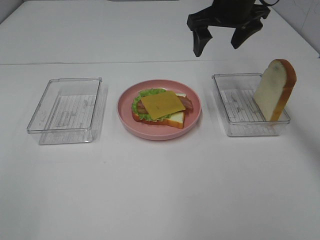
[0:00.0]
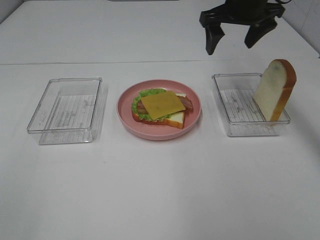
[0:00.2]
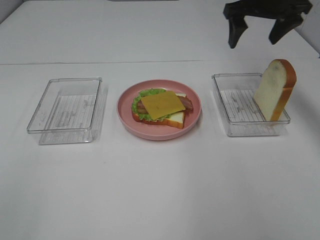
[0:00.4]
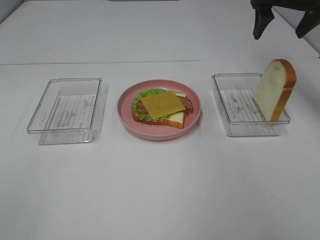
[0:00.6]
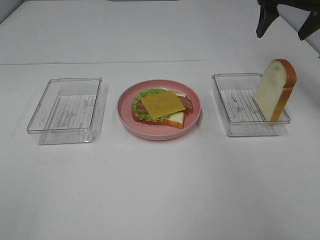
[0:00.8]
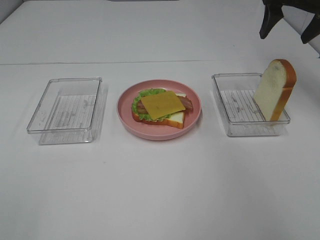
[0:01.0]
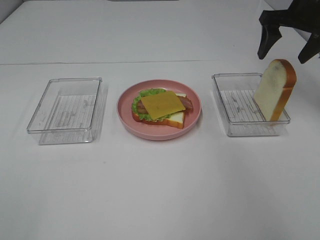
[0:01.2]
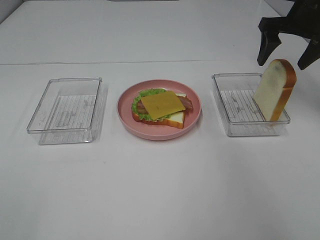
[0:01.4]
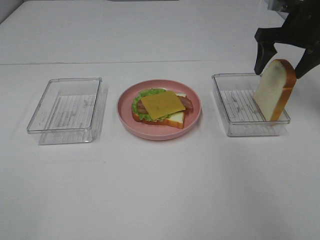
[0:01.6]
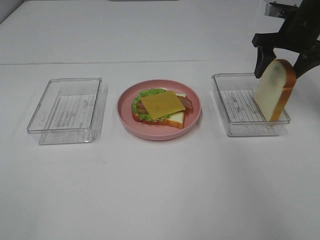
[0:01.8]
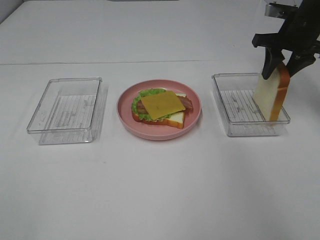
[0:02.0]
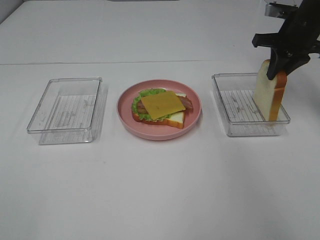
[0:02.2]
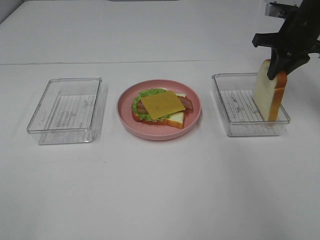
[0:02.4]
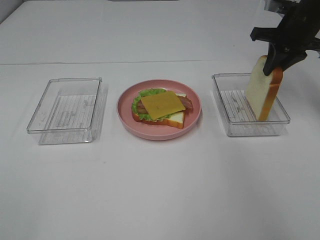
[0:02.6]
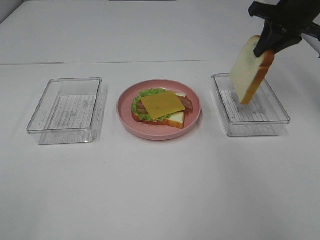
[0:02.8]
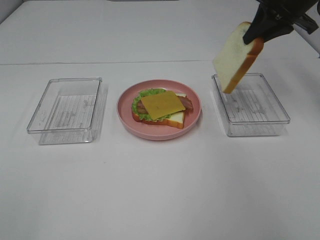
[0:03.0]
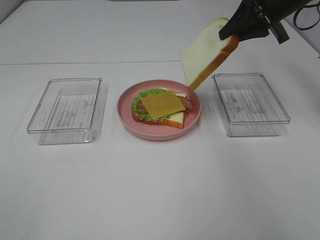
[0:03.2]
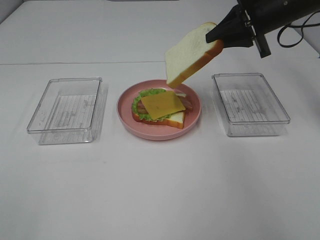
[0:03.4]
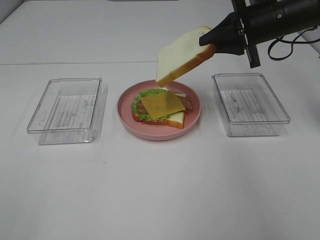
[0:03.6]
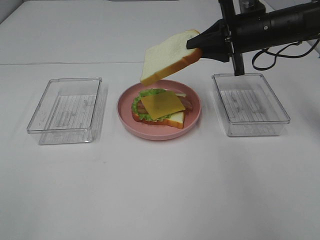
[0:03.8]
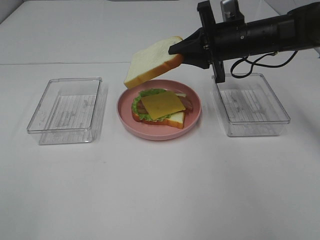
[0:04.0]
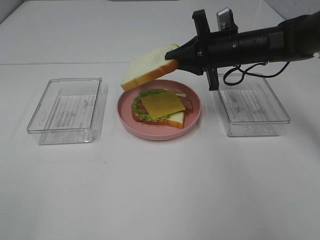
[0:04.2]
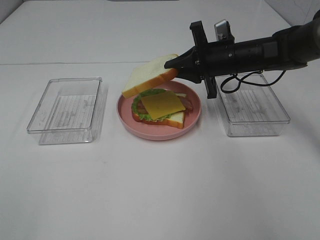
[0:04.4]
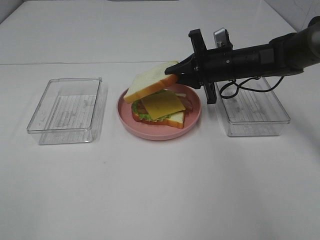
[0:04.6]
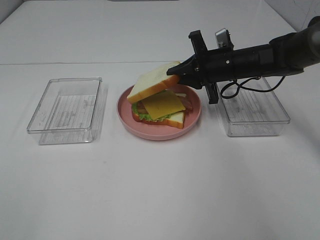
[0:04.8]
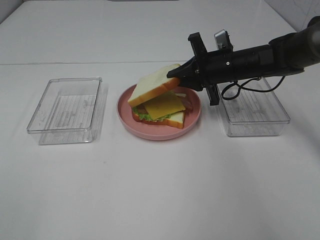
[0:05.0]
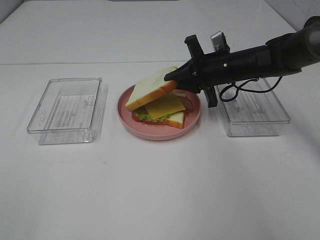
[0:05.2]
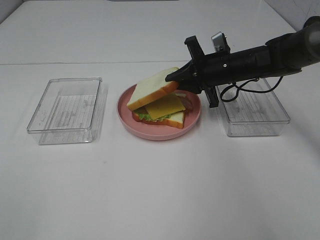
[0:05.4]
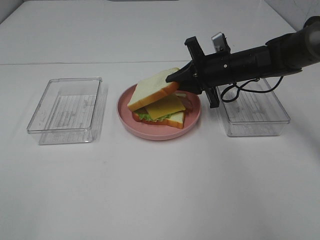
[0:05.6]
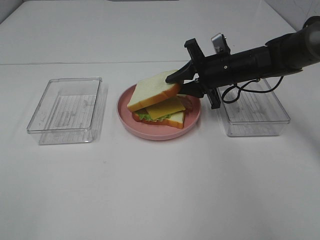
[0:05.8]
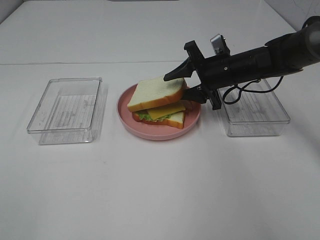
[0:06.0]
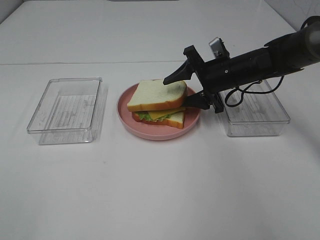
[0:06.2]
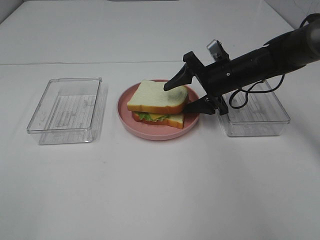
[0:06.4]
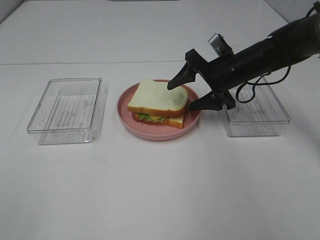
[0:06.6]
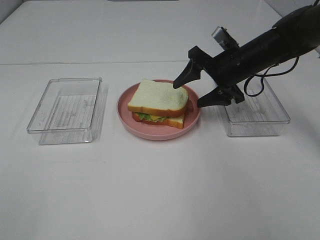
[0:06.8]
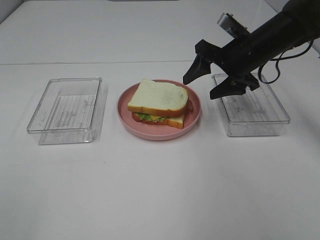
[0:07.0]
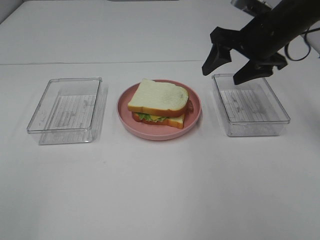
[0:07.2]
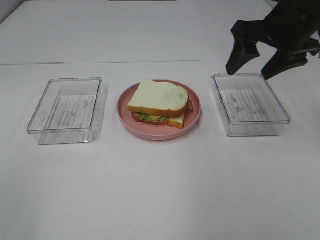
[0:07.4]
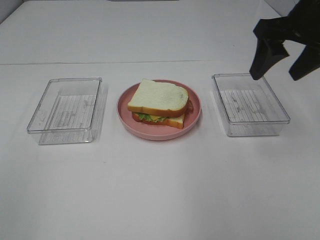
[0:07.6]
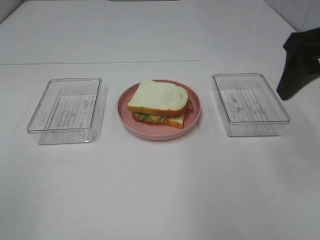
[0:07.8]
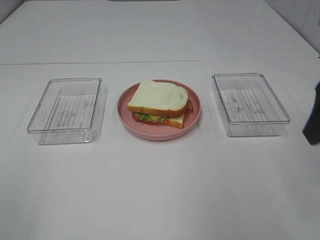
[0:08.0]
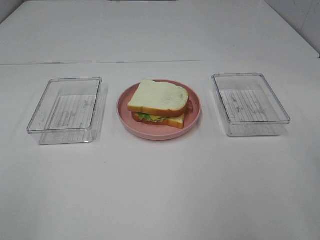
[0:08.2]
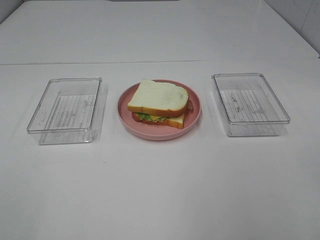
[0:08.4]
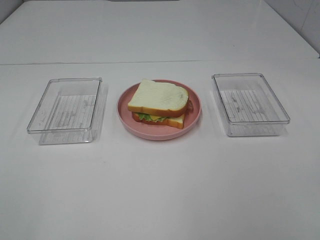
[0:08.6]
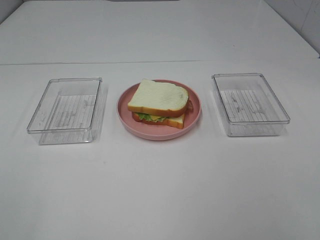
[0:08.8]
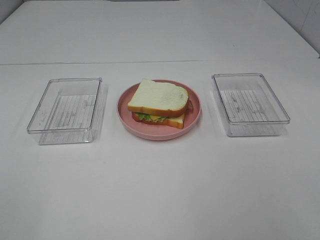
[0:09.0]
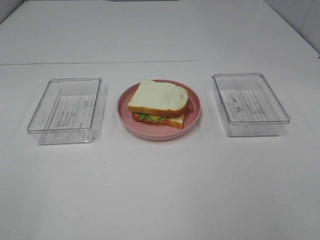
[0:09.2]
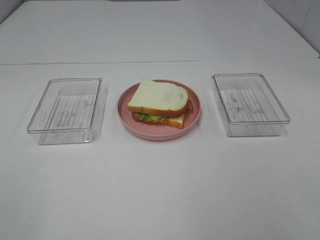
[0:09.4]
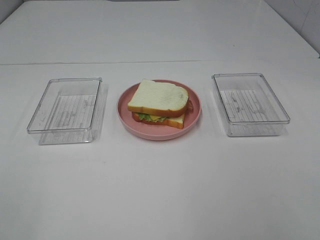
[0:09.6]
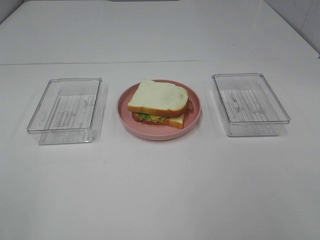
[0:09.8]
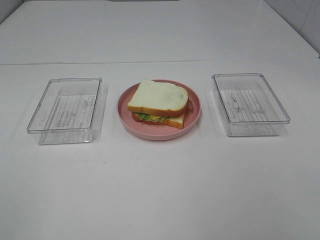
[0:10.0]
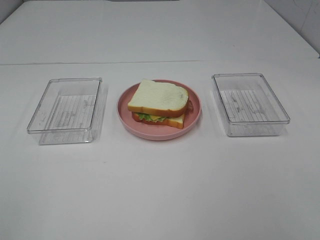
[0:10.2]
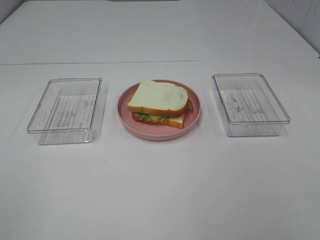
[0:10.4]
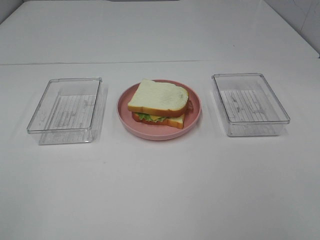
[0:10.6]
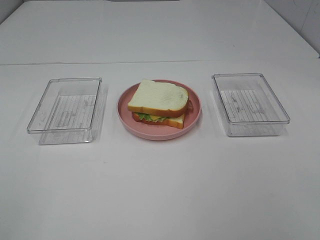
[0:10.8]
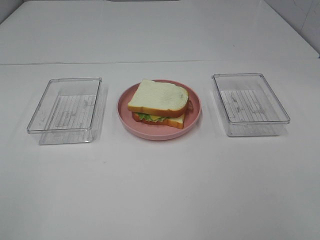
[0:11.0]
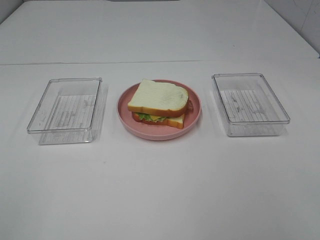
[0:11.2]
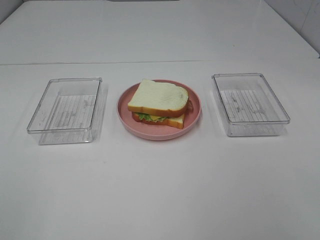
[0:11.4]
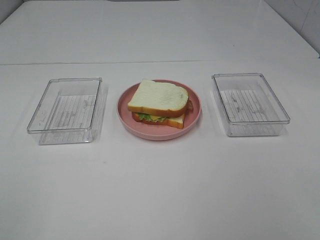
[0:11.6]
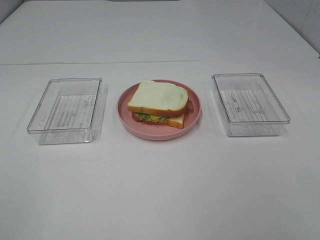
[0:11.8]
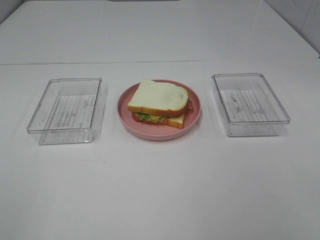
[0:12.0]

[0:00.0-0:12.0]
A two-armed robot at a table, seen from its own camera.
Task of the whole recording: Make sandwiches.
Step, 0:00.0 to 0:02.6: Right hand:grab the bread slice.
Step, 0:02.8 to 0:07.2: Right hand:place the bread slice on the cheese slice.
0:00.0 to 0:01.6: The right gripper is displaced to the right by some 15 cm.
0:01.6 to 0:03.0: The right gripper shifts about 5 cm upward, and closes.
0:03.0 to 0:04.4: The right gripper moves downward and to the left, roughly 15 cm.
0:04.4 to 0:06.0: The right gripper opens.
0:06.0 to 0:07.6: The right gripper is displaced upward and backward by some 20 cm.
0:07.6 to 0:09.0: The right gripper shifts about 30 cm backward.
0:10.4 to 0:12.0: The two grippers keep their place.

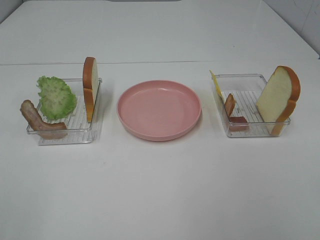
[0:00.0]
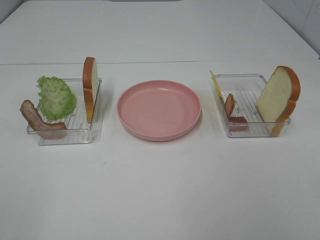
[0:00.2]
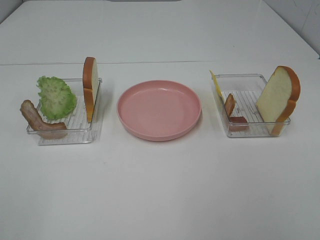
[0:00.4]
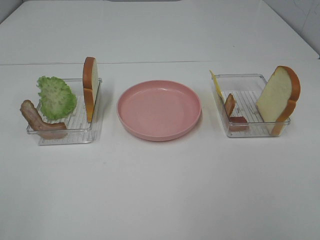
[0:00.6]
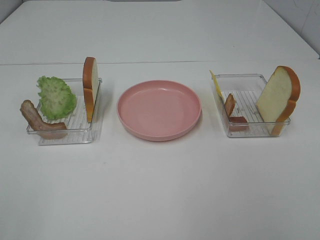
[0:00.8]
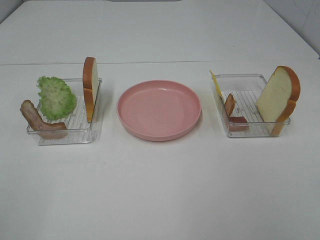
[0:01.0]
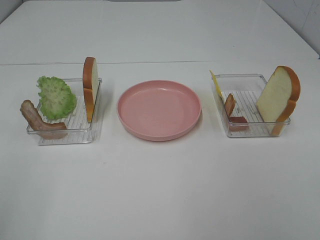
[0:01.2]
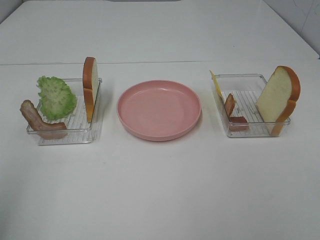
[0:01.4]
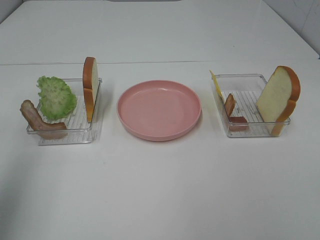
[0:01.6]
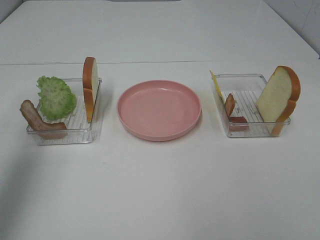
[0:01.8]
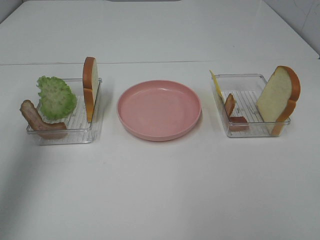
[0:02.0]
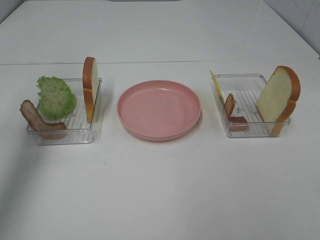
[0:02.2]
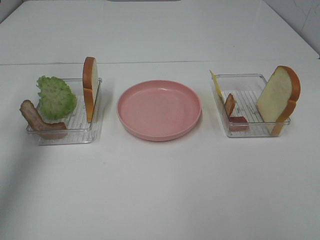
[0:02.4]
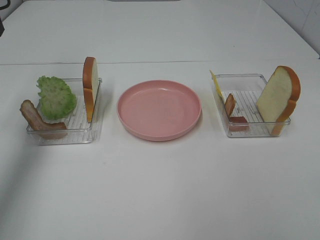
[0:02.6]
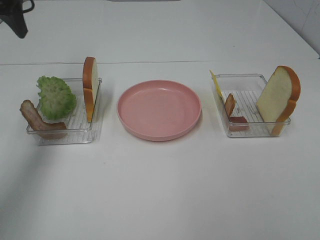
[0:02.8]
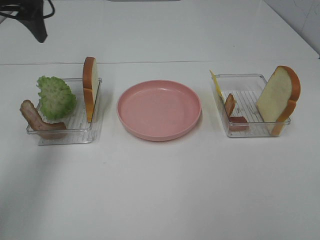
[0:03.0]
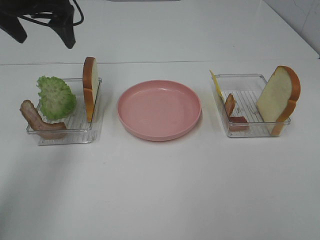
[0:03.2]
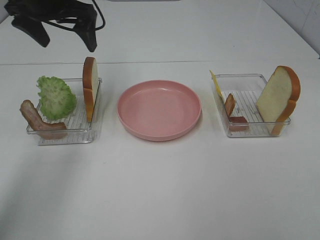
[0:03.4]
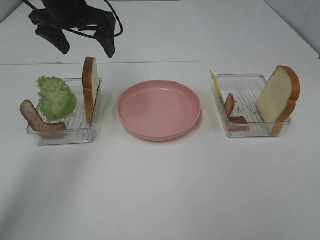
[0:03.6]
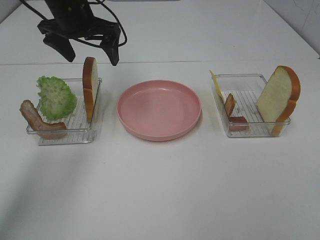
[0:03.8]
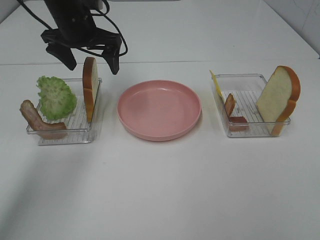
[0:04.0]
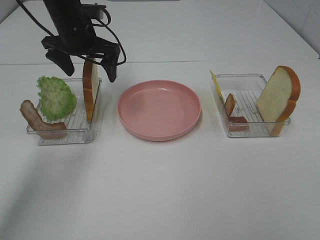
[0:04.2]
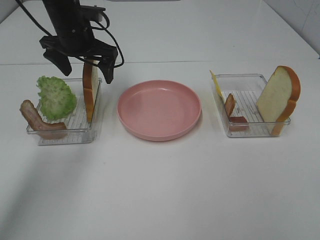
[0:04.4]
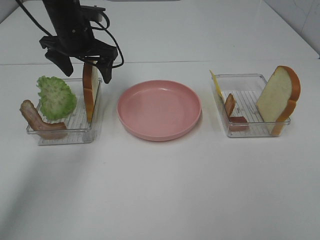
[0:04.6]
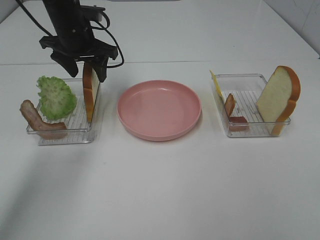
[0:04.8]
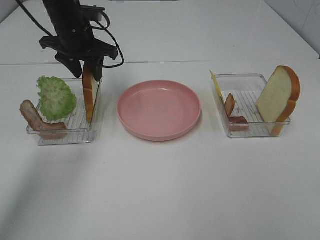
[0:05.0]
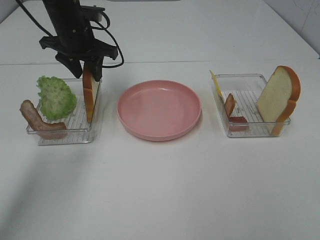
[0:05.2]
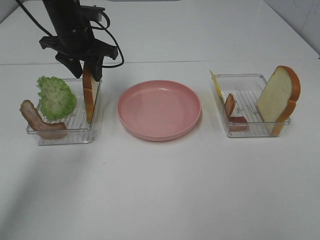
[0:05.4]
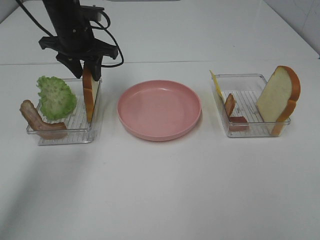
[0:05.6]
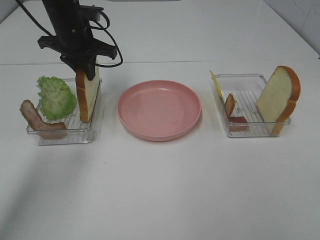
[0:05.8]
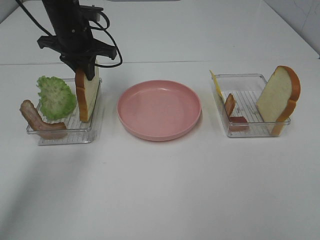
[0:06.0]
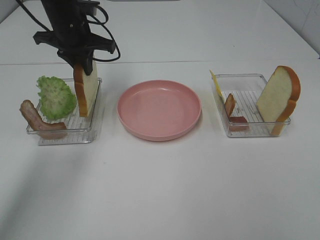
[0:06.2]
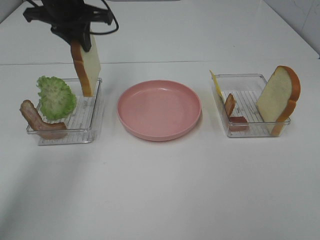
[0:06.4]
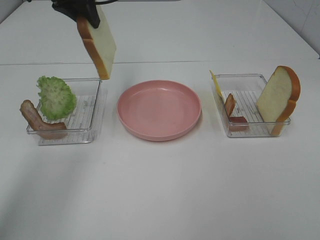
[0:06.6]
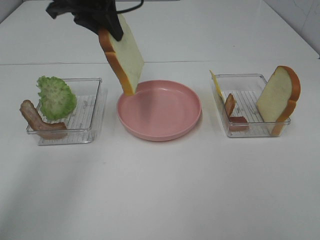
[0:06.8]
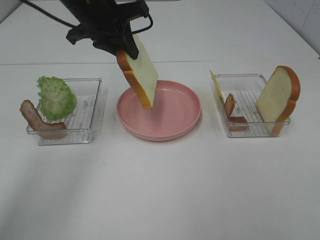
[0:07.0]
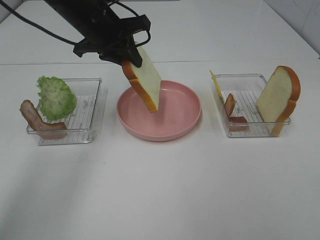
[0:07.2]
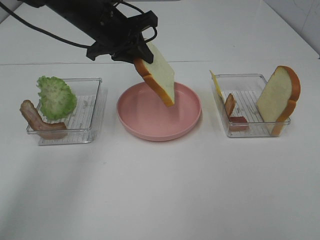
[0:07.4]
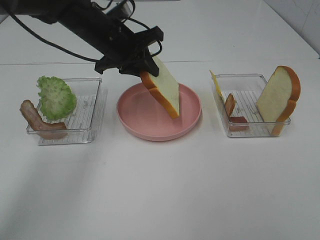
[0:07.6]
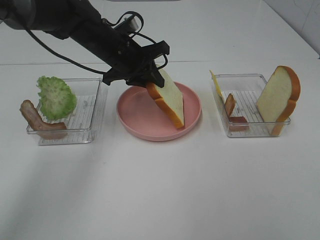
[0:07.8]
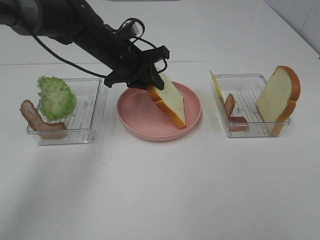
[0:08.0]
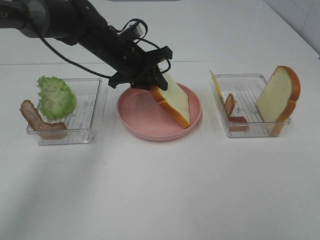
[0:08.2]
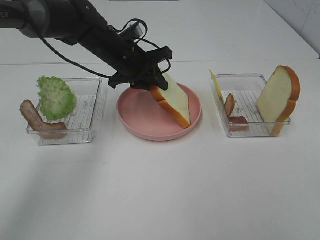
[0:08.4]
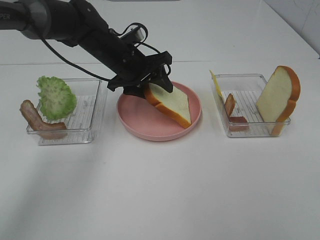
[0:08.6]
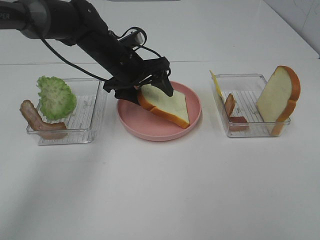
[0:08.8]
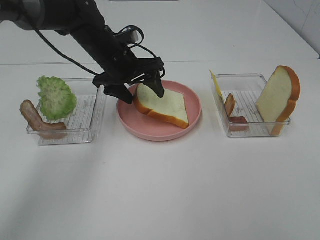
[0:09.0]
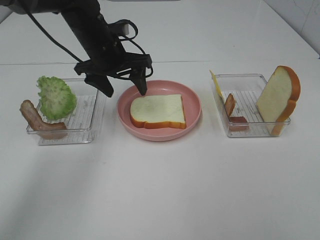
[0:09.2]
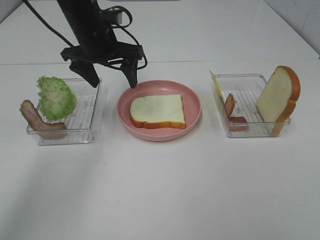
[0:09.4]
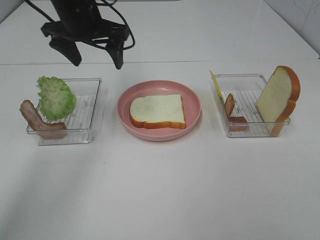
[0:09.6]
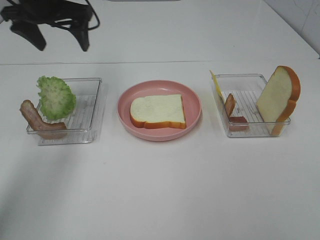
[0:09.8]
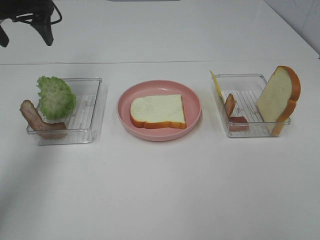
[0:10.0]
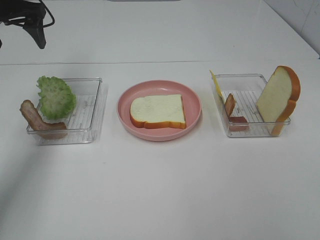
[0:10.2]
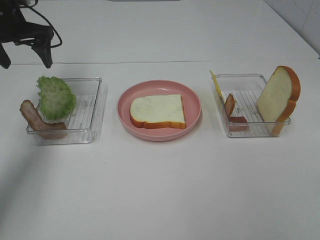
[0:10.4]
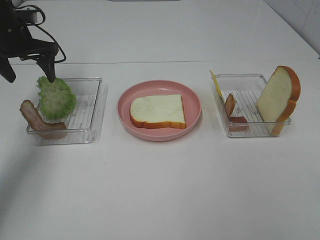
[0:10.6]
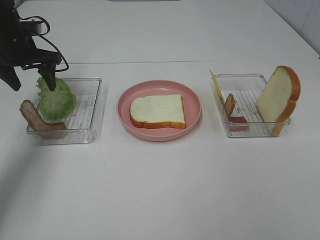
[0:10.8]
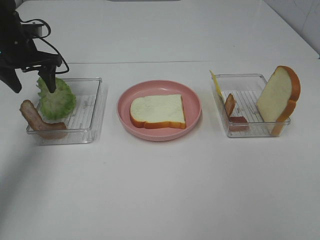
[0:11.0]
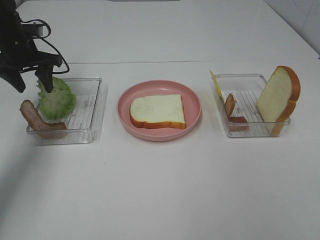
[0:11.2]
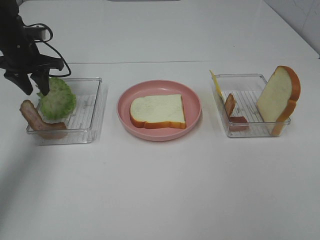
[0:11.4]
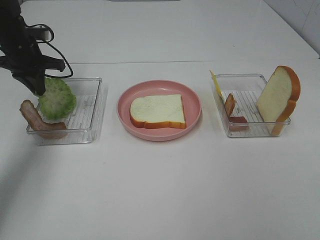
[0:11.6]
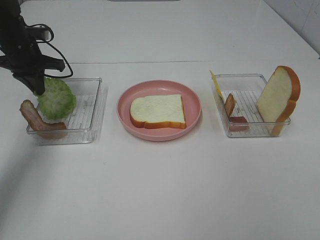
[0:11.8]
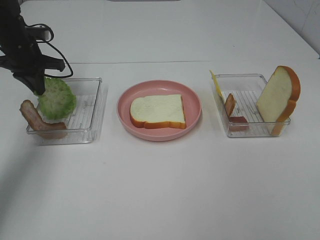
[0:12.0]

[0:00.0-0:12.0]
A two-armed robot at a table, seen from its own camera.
Task of the whole recording: Make sandwiches.
Step, 0:00.0 to 0:05.8: Left hand:grab the bread slice.
Step, 0:06.0 to 0:09.2: Left hand:place the bread slice on the plate.
0:00.0 to 0:01.6: The left gripper moves forward and upward, about 20 cm.
0:01.6 to 0:03.0: The left gripper is displaced forward by some 25 cm.
0:03.0 to 0:04.4: The left gripper heads downward, to the right and forward, covering approximately 15 cm.
0:04.4 to 0:06.0: The left gripper closes.
0:06.0 to 0:07.6: The left gripper is displaced to the right by about 5 cm, and goes upward and returns, some 10 cm each way.
0:07.6 to 0:09.0: The left gripper opens.
0:09.0 to 0:10.4: The left gripper shifts approximately 20 cm to the left.
0:10.4 to 0:12.0: The left gripper travels downward by approximately 5 cm, and closes its fingers.
